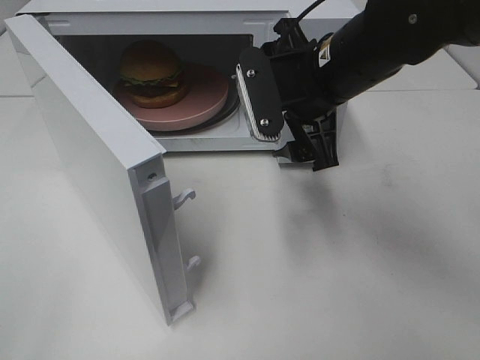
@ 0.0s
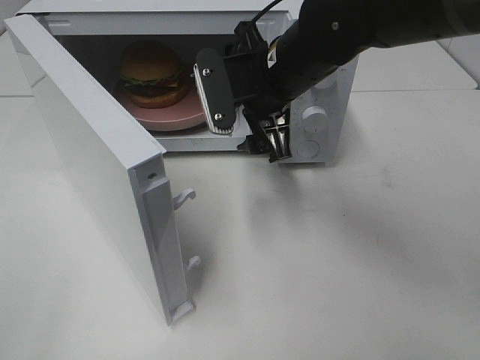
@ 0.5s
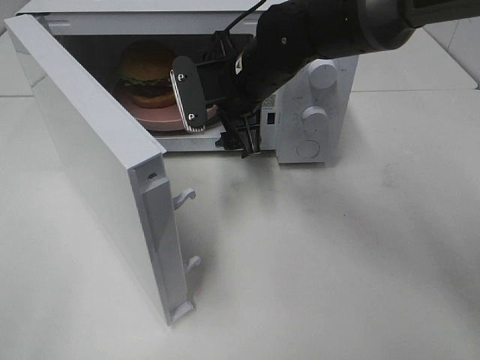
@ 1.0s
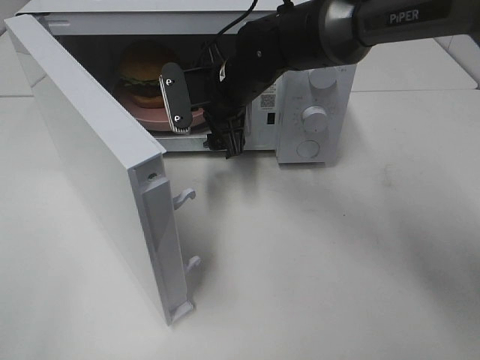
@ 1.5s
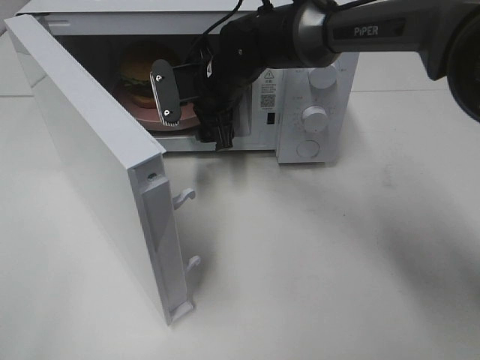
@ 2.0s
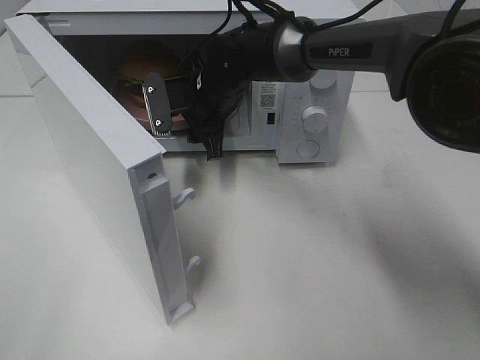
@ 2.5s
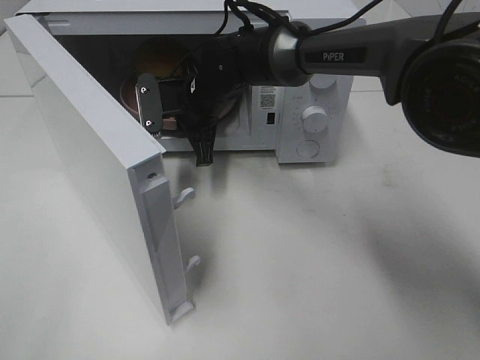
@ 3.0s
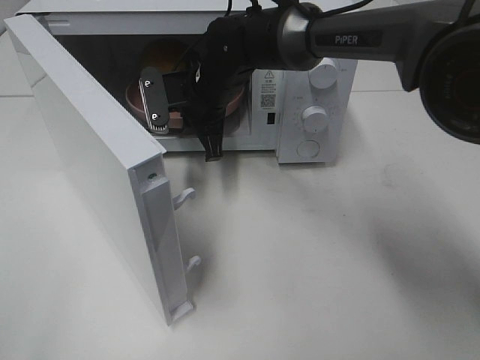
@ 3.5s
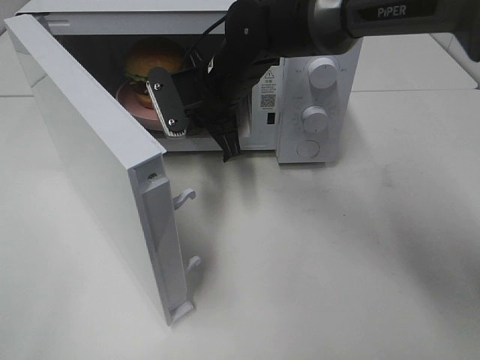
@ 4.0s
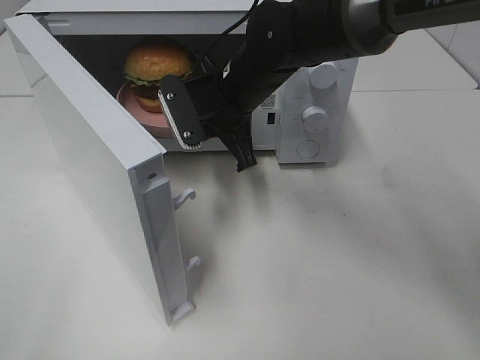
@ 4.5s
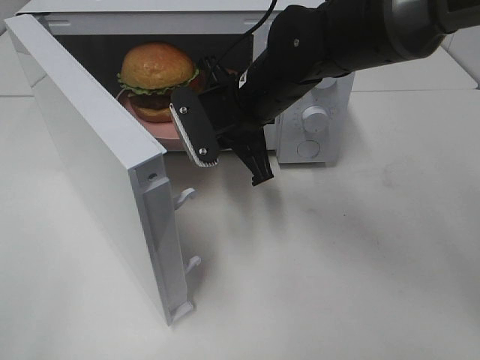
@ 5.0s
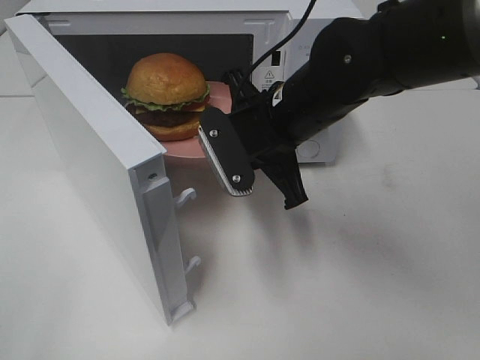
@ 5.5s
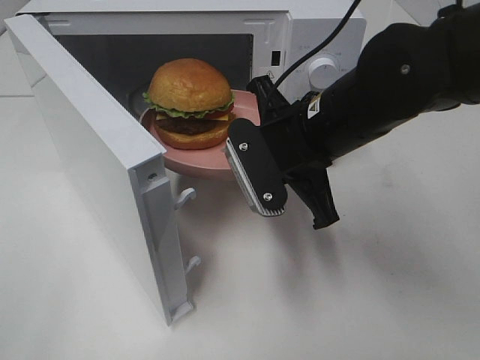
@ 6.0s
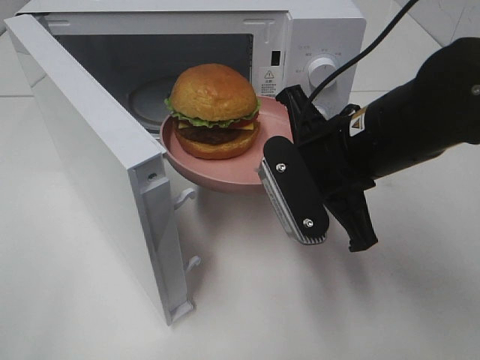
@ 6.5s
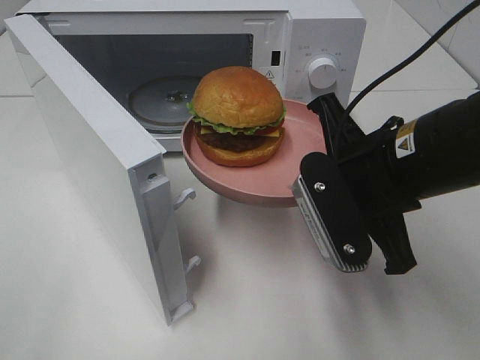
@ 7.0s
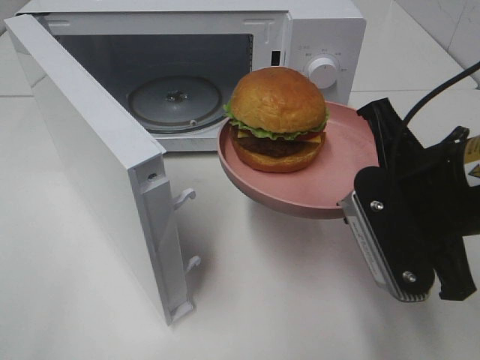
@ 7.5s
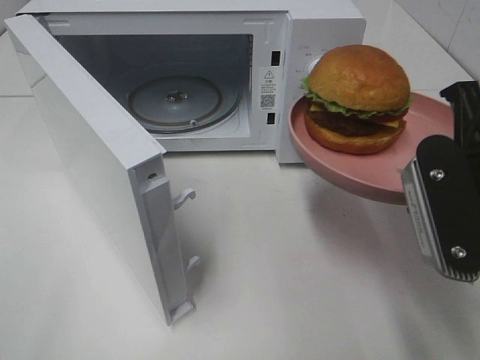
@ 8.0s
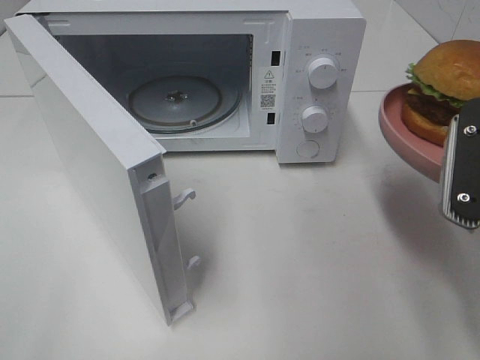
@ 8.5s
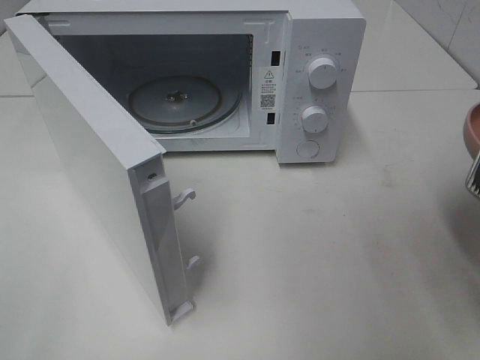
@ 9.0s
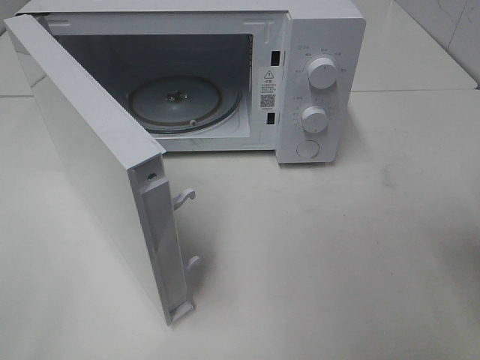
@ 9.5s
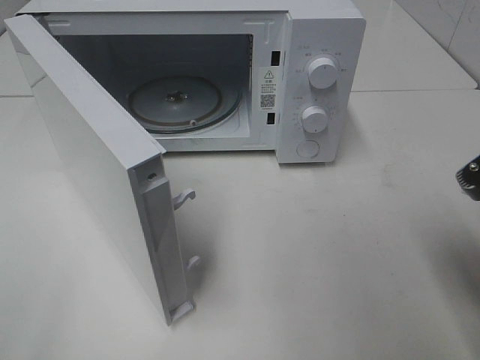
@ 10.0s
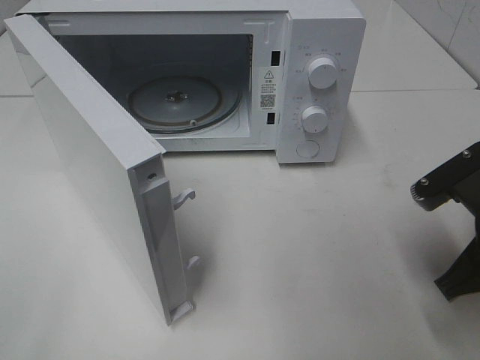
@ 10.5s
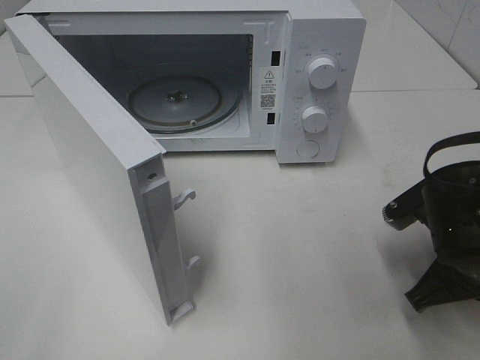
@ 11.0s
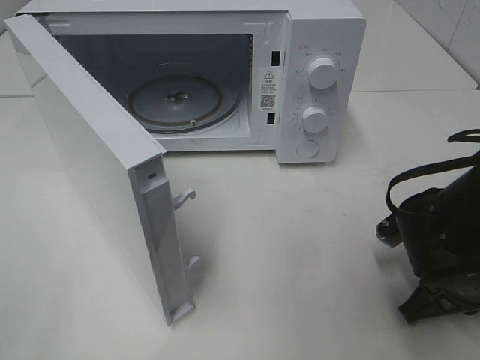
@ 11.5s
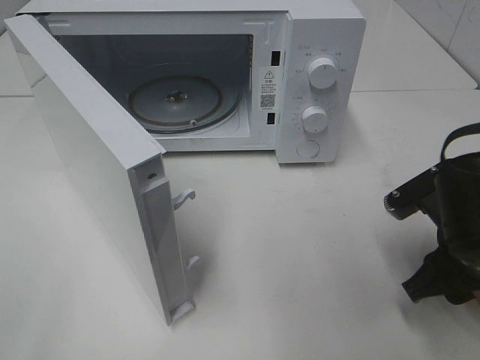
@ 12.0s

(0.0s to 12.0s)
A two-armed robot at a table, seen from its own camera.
Task of the whole recording: Heat the burger.
Step, 0.0s - 3.0s: Right hand: grab the plate with the hamburger.
Step, 3.5s - 11.5s: Right hand: place the plate on the table.
0.0s - 2.0s: The right gripper moves forward, to the left and downward, approximately 20 cm.
2.0s - 4.0s: The right gripper closes.
4.0s - 6.0s: The right gripper goes approximately 15 cm backward and to the right.
6.0s - 8.0s: The right gripper is displaced backward and to the right by approximately 15 cm.
8.0s - 10.0s: The right gripper shifts by some 5 cm.
10.0s - 12.0s: The right gripper heads downward, covering roughly 5 cm, and opens up.

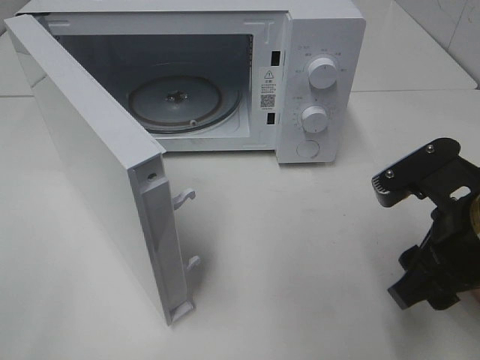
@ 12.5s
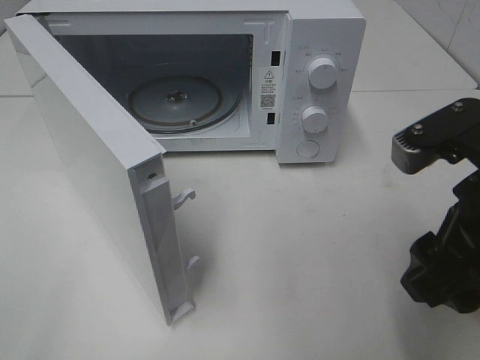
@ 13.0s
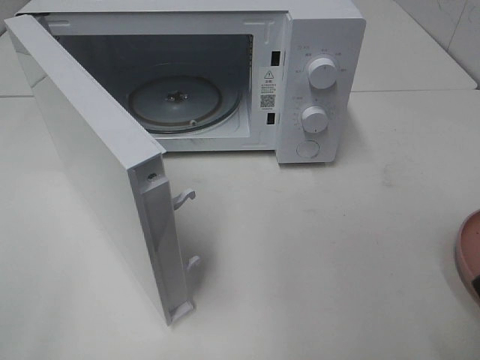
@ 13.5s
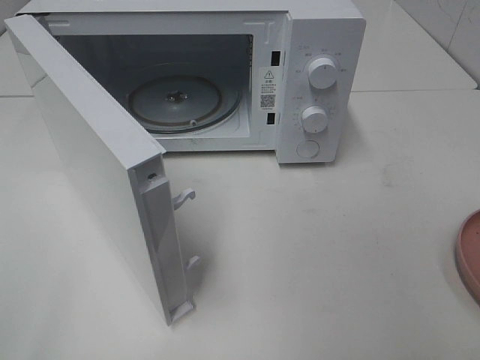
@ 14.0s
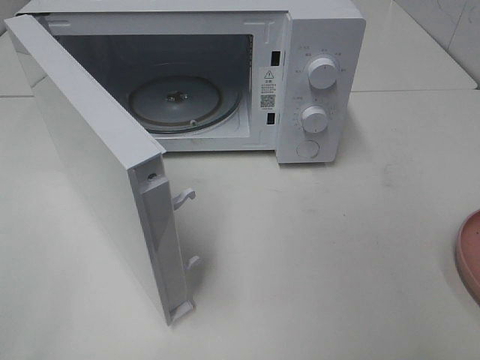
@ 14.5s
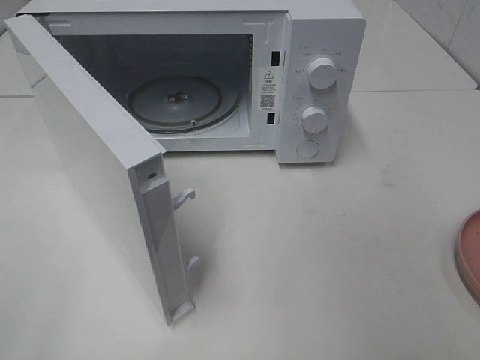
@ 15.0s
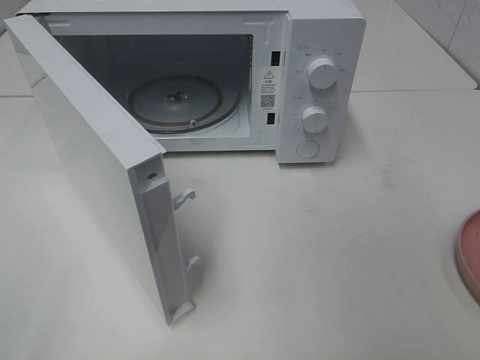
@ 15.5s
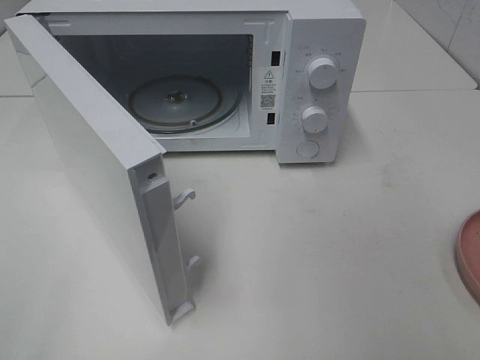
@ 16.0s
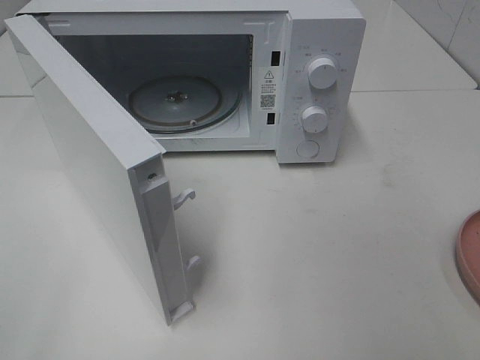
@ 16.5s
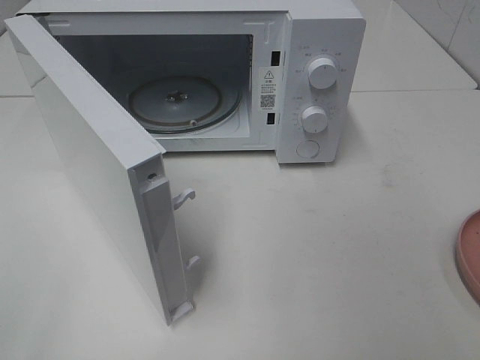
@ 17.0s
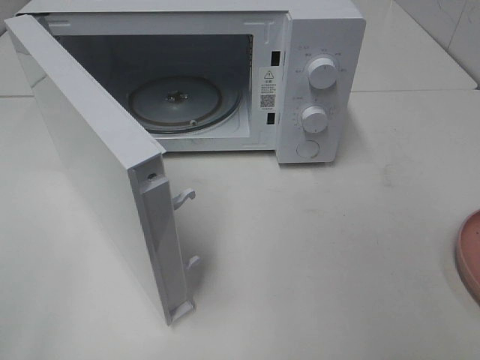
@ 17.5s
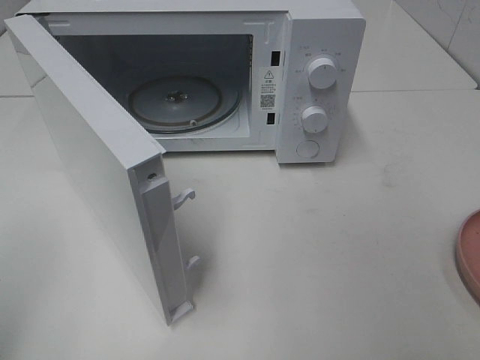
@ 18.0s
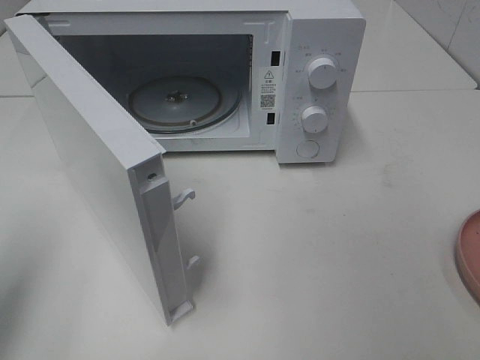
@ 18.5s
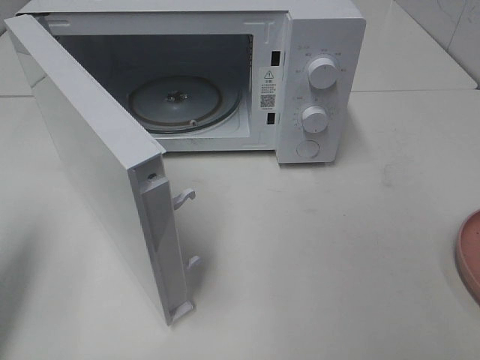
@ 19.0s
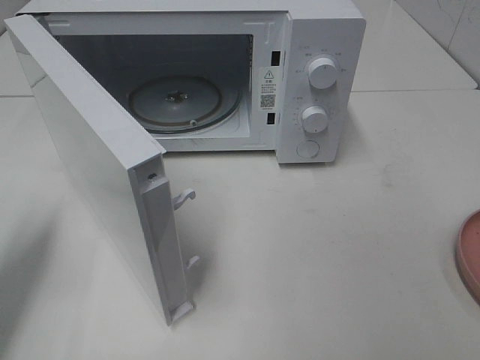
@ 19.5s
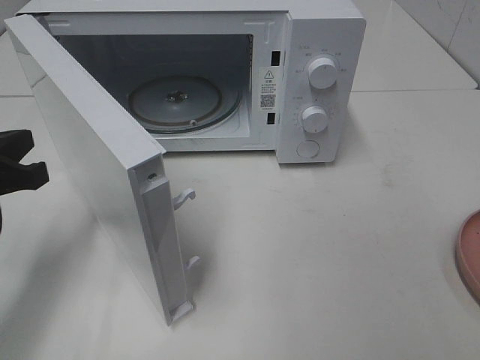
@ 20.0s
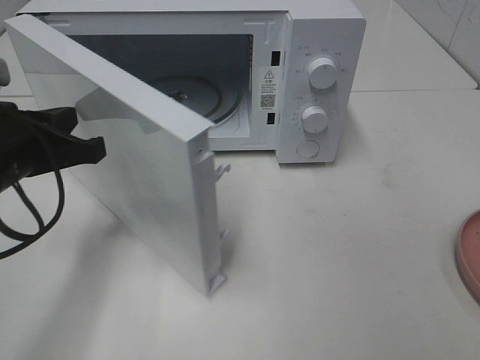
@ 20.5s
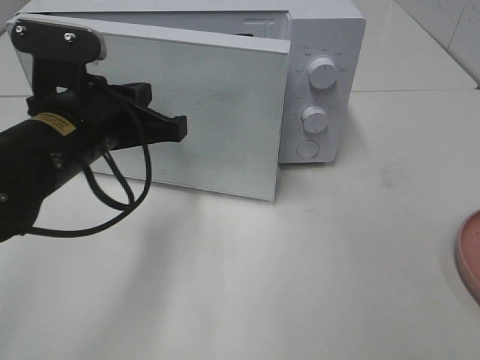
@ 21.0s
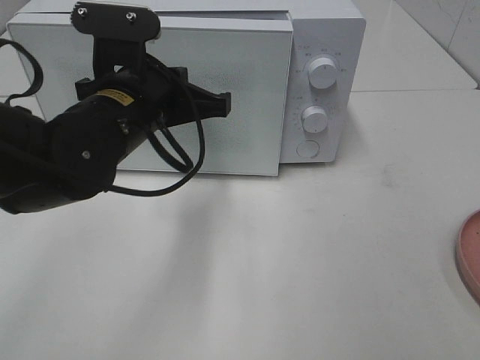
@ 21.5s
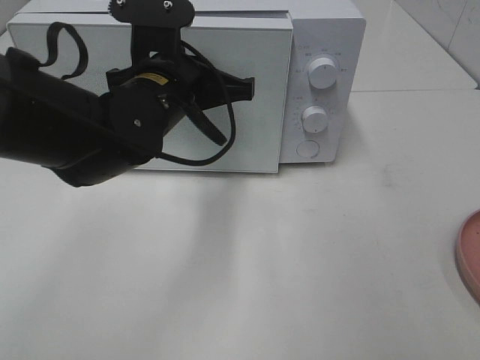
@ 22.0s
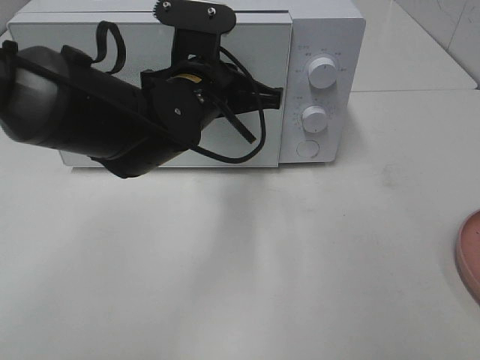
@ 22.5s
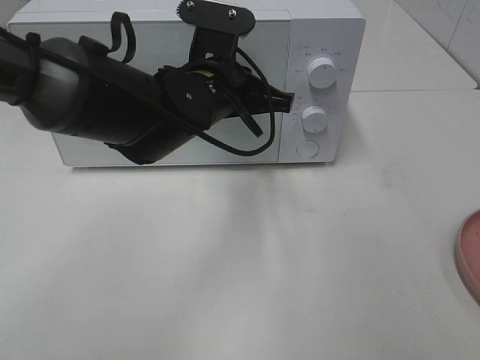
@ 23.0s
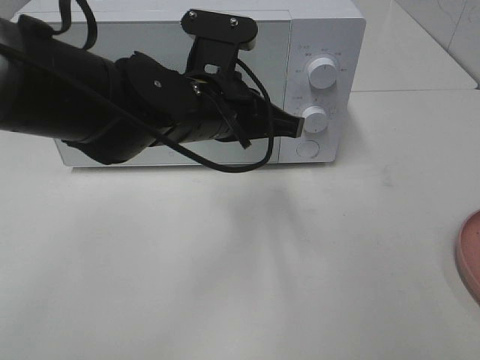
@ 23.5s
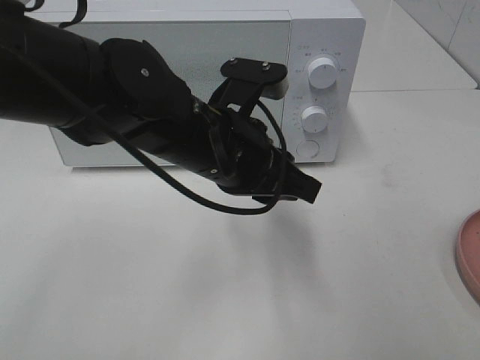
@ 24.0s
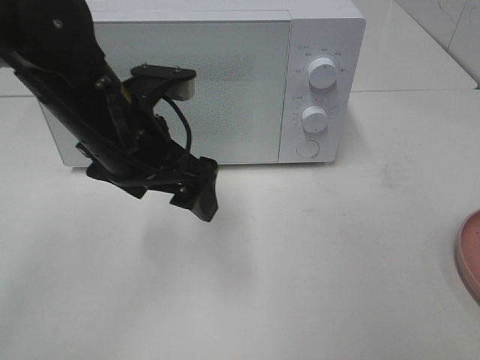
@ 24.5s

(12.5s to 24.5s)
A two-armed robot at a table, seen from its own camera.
Task of the whole recording: Heat the burger.
Step, 12.5s - 23.0s: Left hand: close the microwave door.
12.5s - 14.5s: The right gripper heads backward, upward and to the right, covering approximately 20 cm.
16.5s - 18.5s: The left gripper travels forward by approximately 15 cm, and closes.
18.5s - 20.5s: The left gripper travels to the right, forward and downward by some 15 cm.
20.5s - 22.5s: The left gripper is displaced to the right and forward by about 20 cm.
22.5s - 24.5s: The left gripper travels to the left and backward by some 10 cm, and opens.

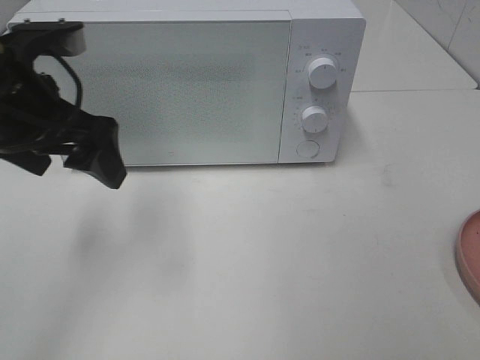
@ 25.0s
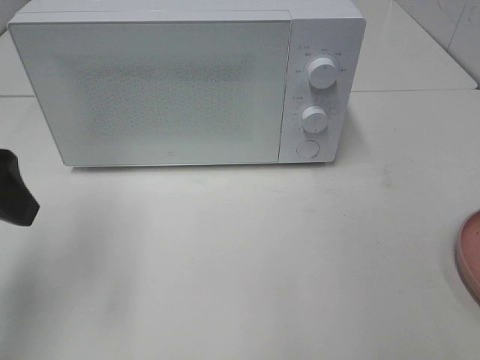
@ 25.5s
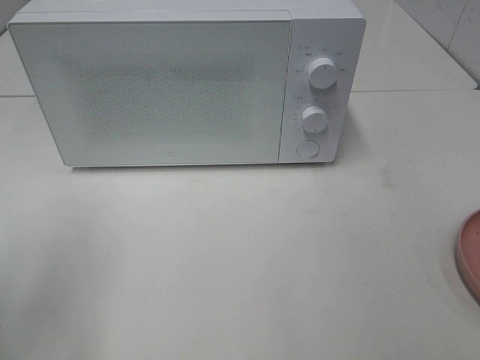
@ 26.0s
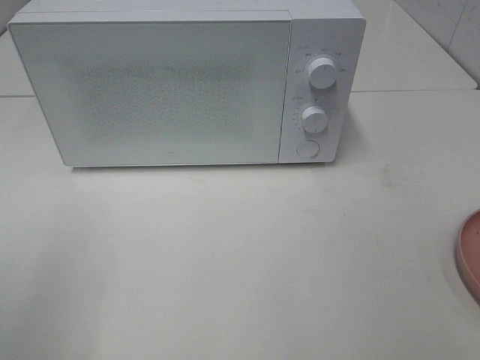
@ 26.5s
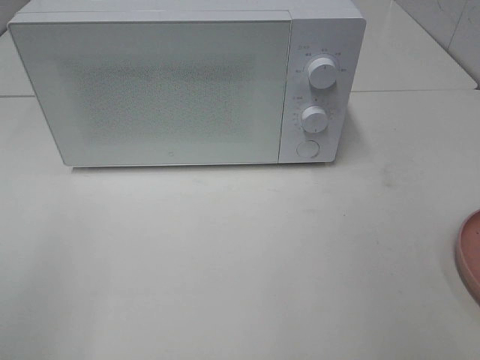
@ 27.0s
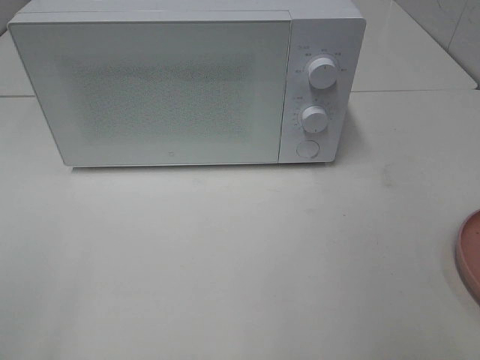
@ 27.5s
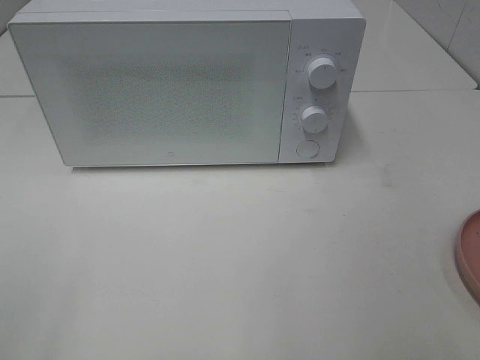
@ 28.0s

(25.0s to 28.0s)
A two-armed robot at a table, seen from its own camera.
Task of the whole recording: Heat the burger.
25.0s - 26.5s: The left gripper is displaced backward and to the left by some 20 cm.
